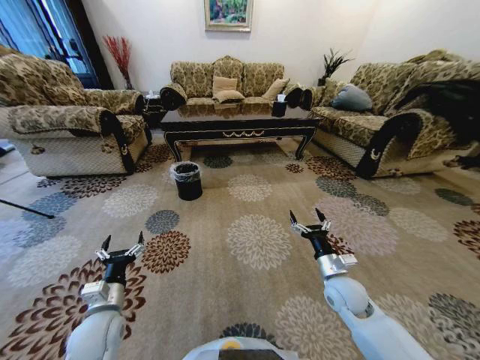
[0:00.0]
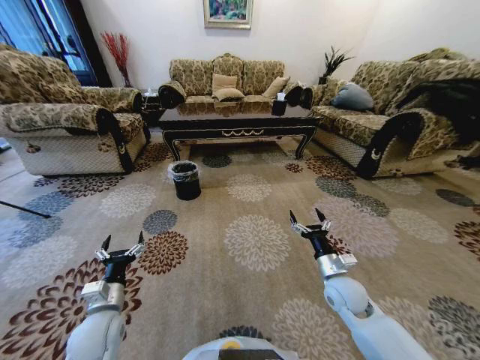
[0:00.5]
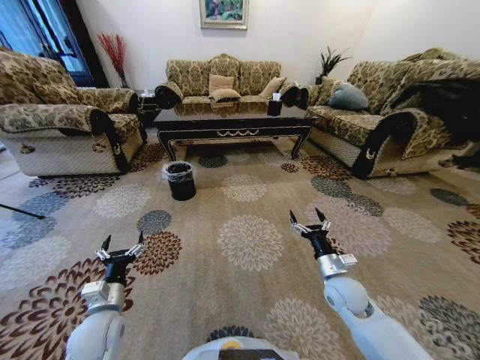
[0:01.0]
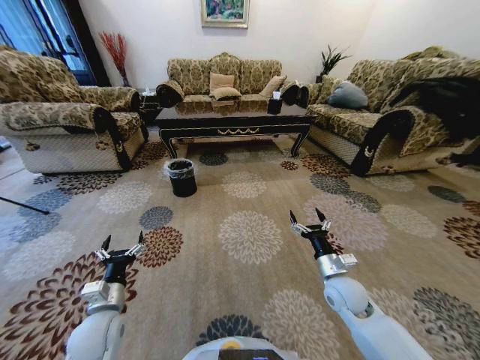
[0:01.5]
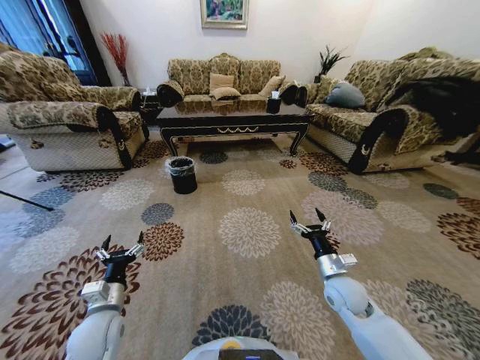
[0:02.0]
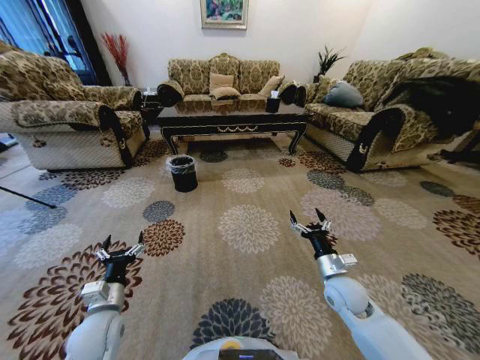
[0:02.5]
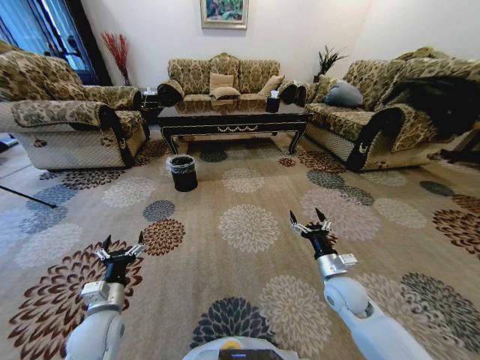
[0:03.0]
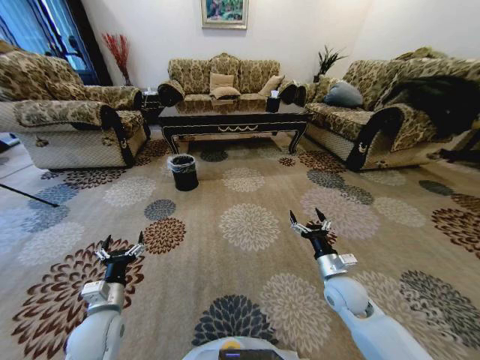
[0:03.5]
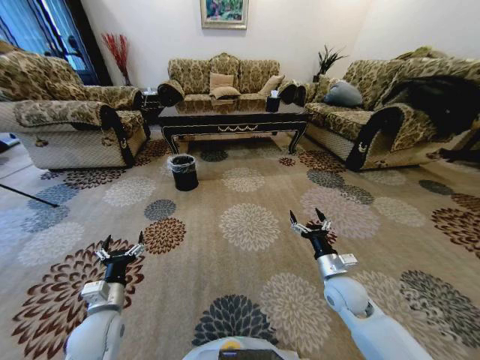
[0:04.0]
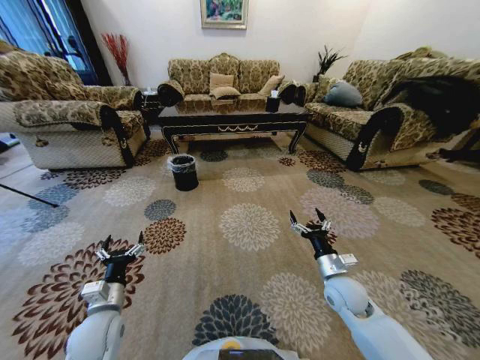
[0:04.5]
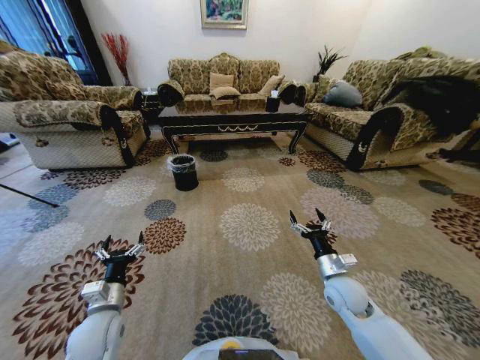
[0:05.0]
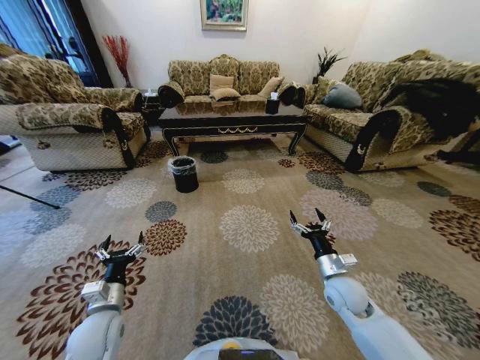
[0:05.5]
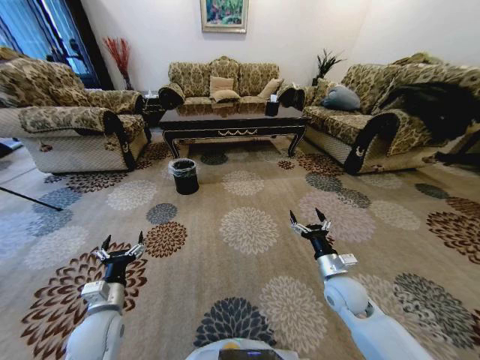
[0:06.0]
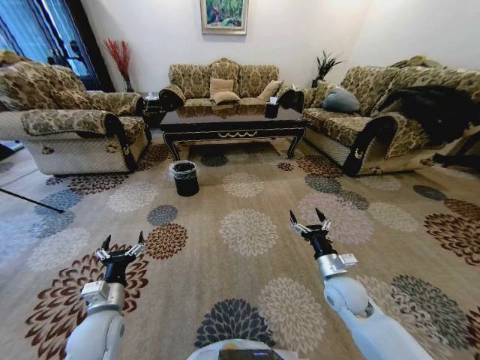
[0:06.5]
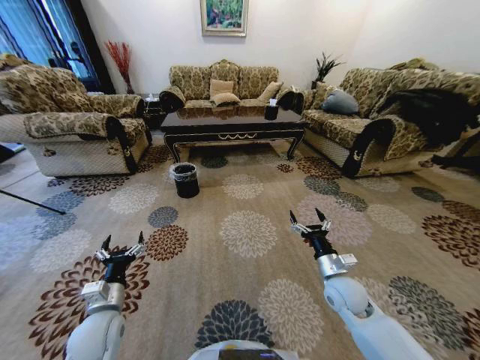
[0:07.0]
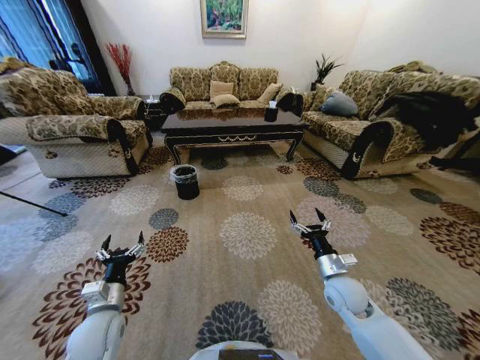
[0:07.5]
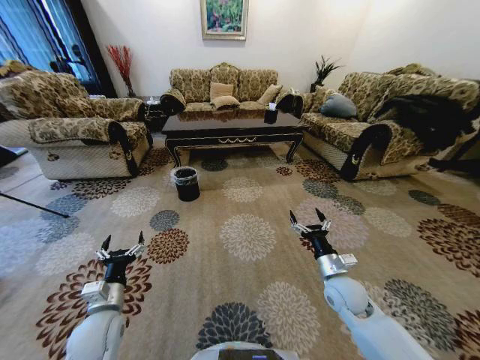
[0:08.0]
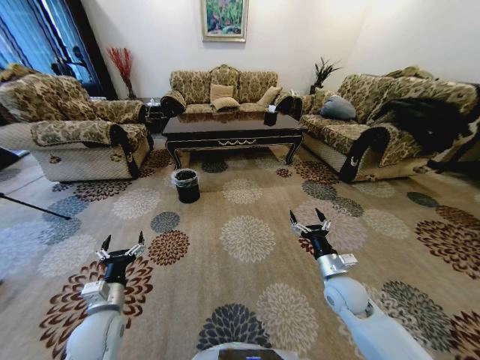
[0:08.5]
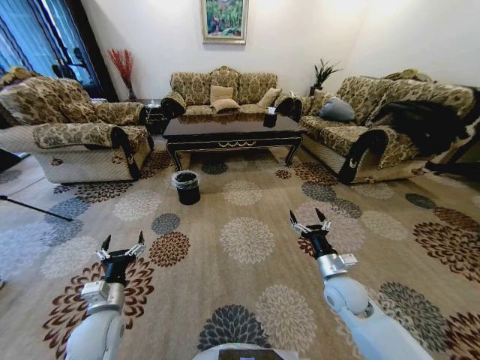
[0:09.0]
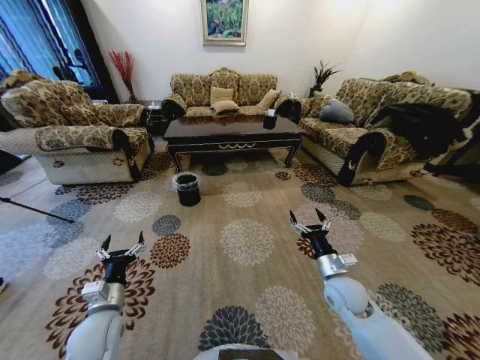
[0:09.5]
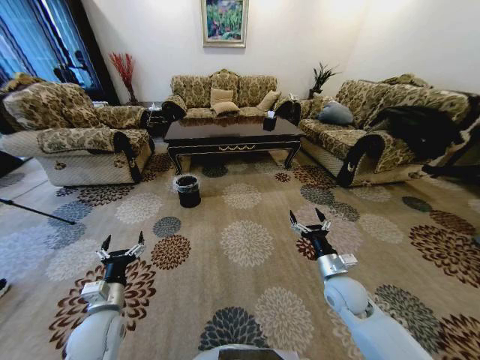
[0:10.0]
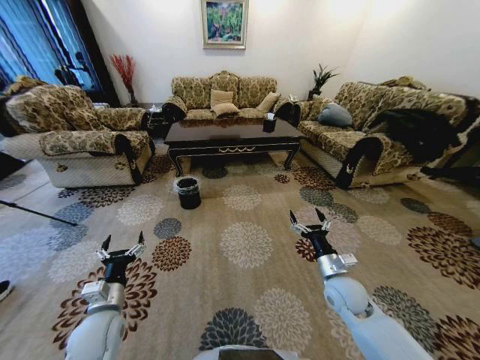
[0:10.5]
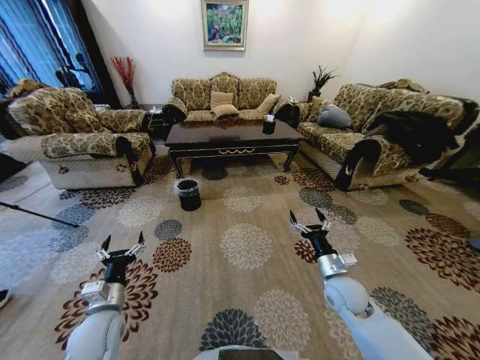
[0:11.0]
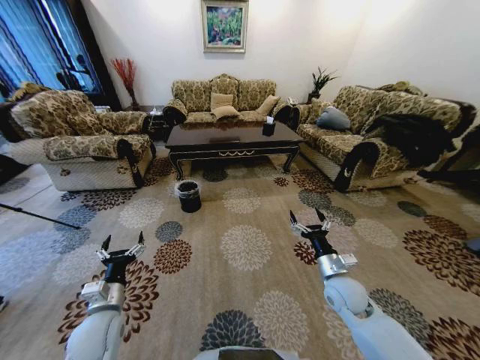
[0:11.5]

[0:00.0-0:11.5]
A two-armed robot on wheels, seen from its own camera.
Task of the whole recording: Move to the front of the table and pick up the trash from the floor, then place it into the trash bin.
0:02.0 to 0:04.0: Neither gripper changes place.

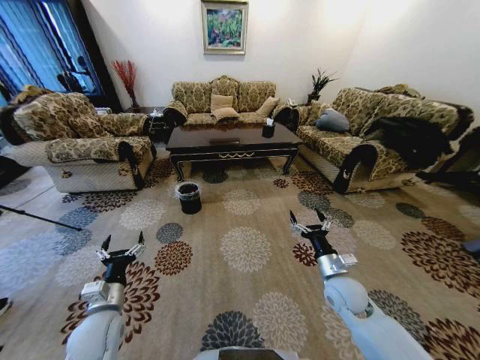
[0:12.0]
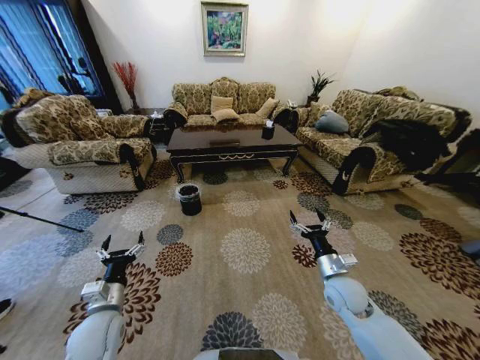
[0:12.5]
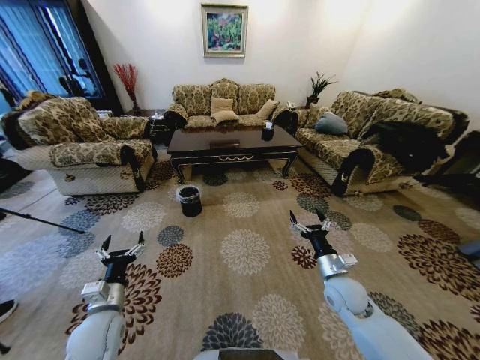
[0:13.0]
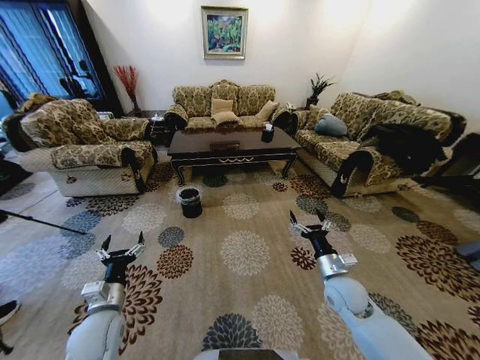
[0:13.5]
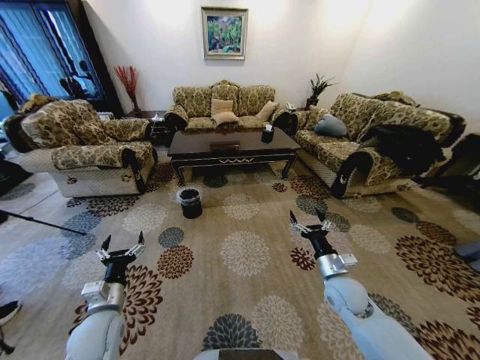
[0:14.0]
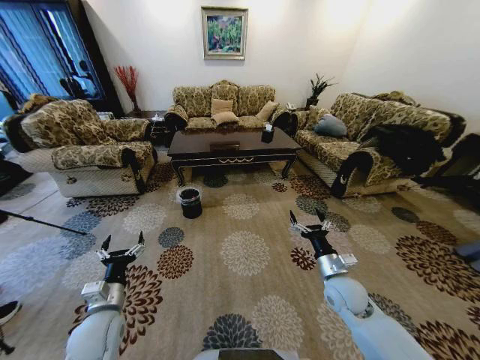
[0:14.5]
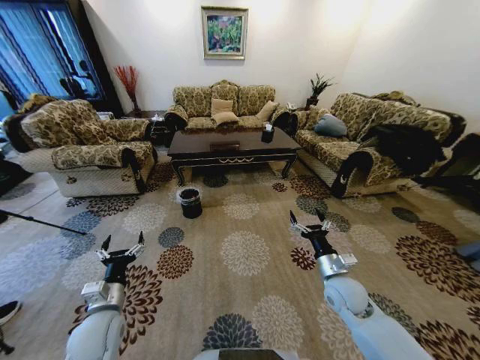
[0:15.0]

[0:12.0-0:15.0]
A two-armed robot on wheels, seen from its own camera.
Task of the whole recording: Move to the front of the table and pick up the trash from the floor, then place it into the trash bin.
0:13.5 to 0:15.0: Both grippers stay put.
